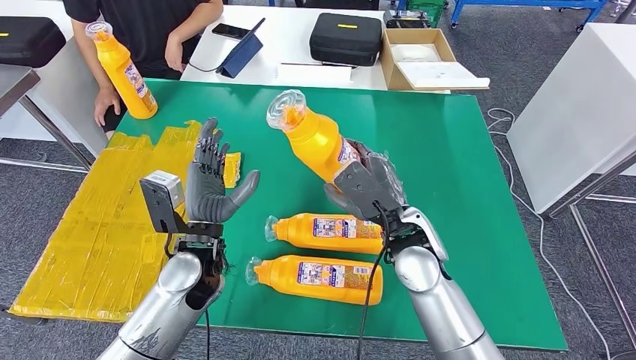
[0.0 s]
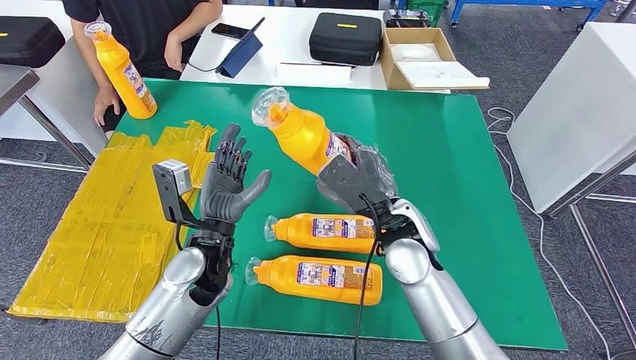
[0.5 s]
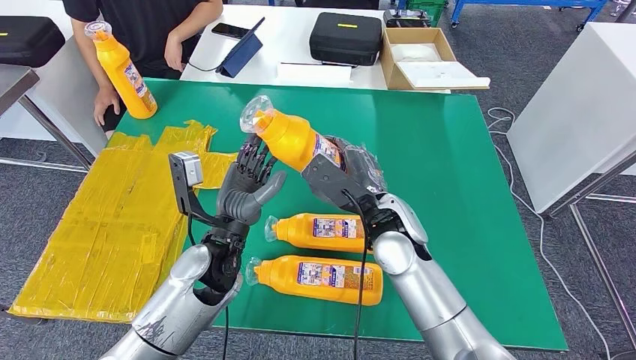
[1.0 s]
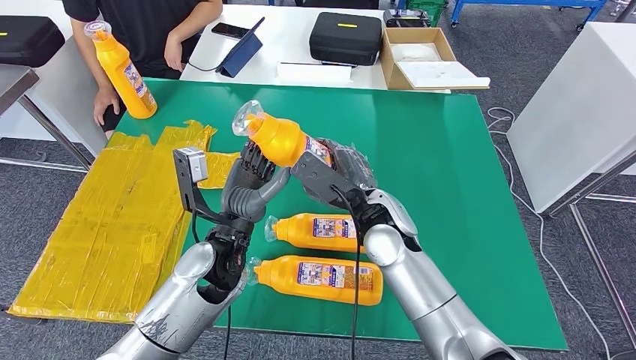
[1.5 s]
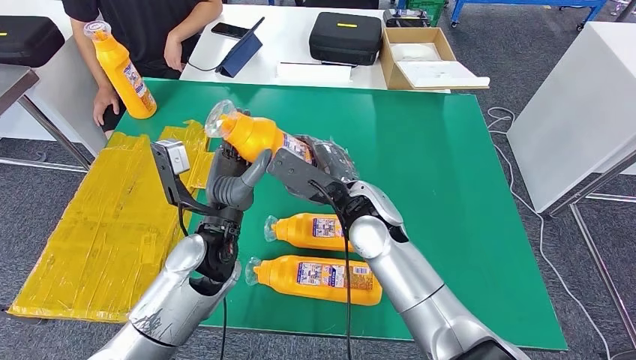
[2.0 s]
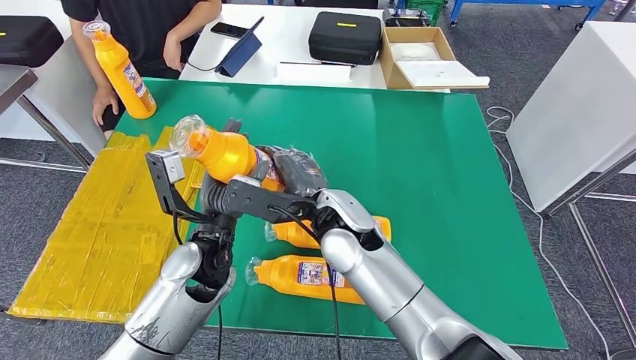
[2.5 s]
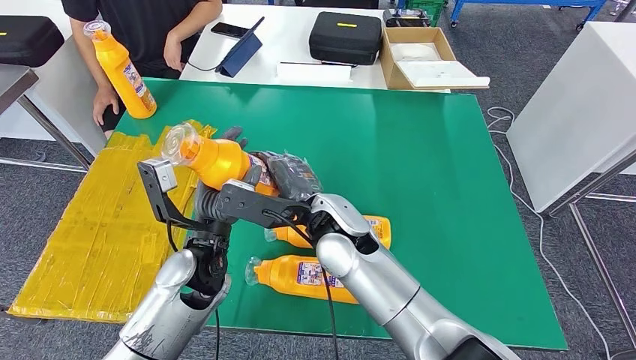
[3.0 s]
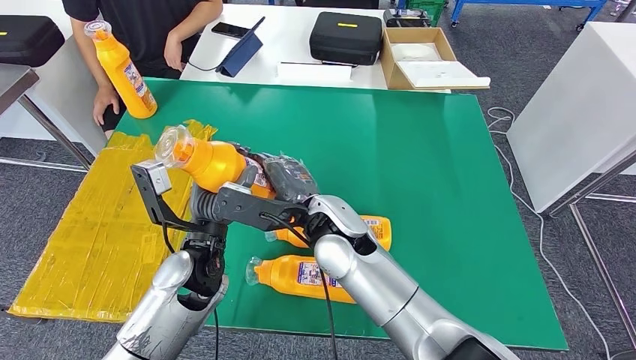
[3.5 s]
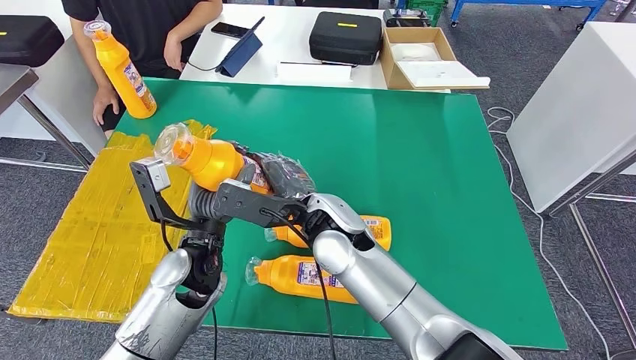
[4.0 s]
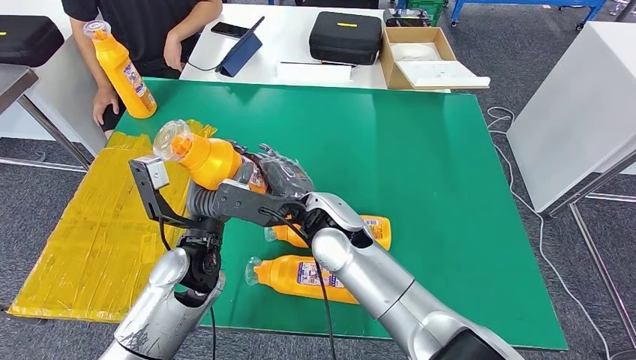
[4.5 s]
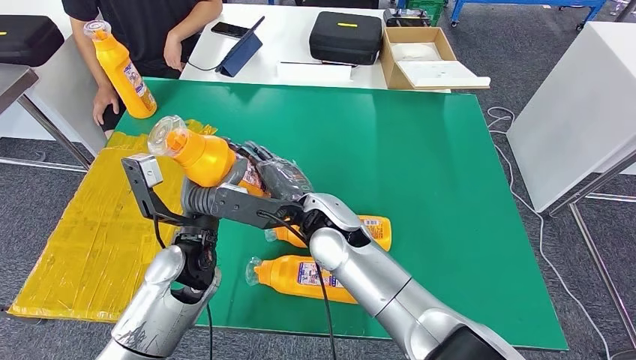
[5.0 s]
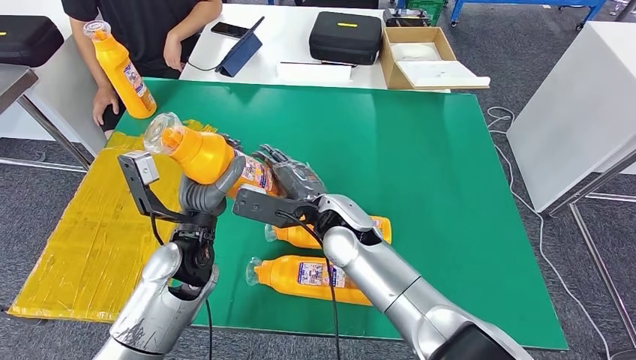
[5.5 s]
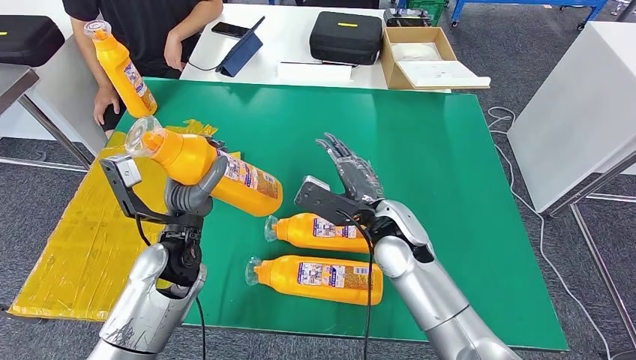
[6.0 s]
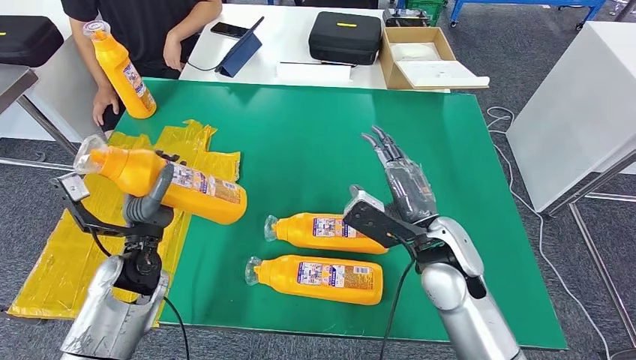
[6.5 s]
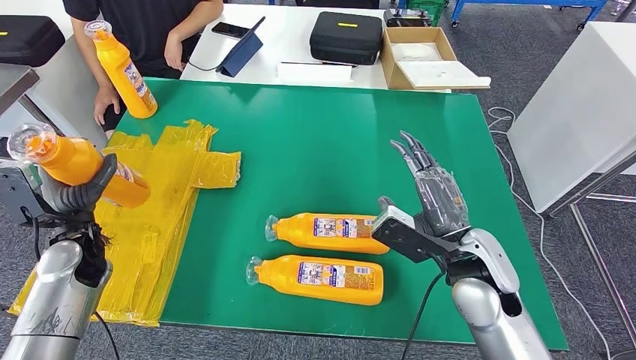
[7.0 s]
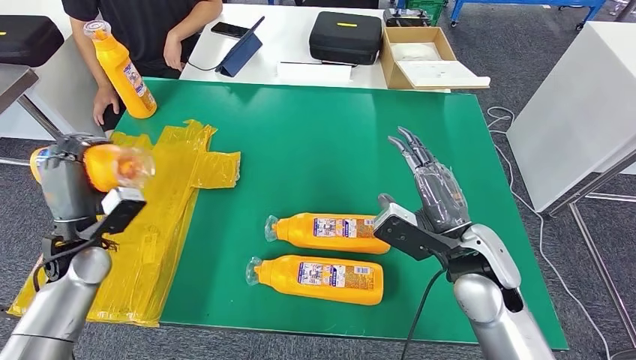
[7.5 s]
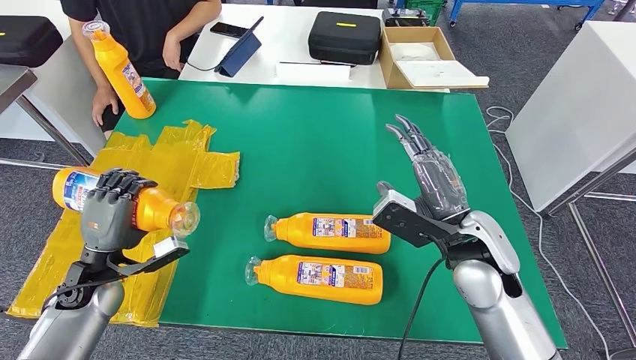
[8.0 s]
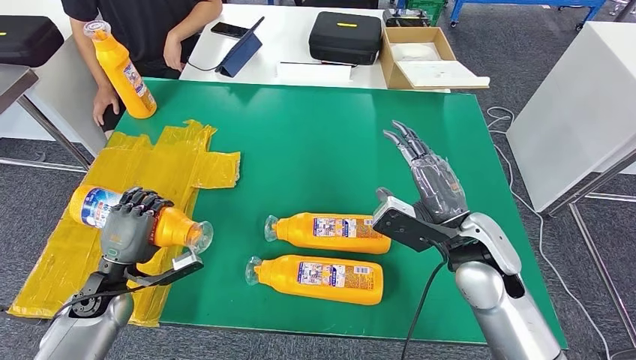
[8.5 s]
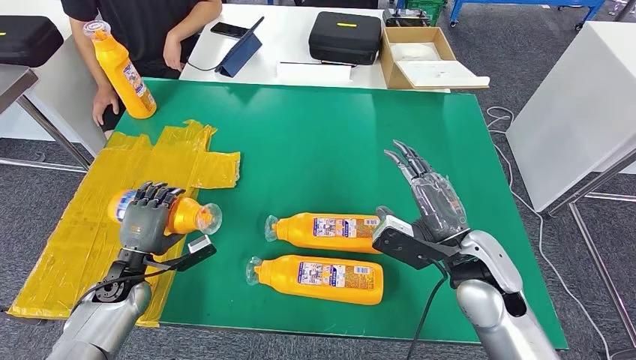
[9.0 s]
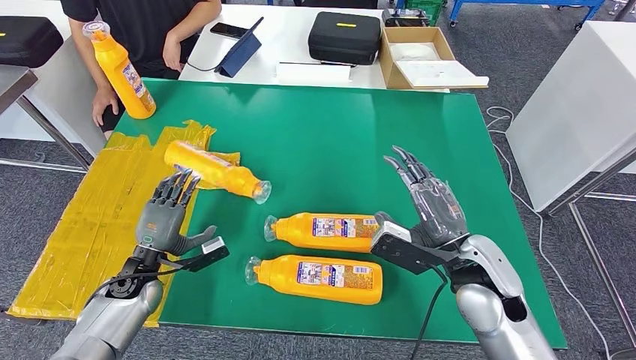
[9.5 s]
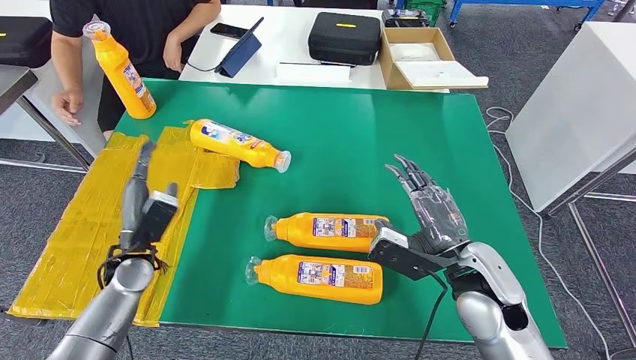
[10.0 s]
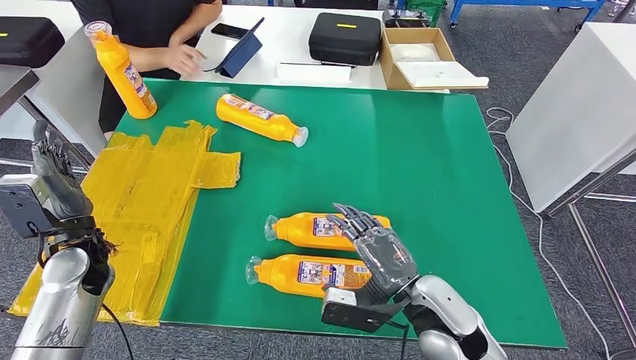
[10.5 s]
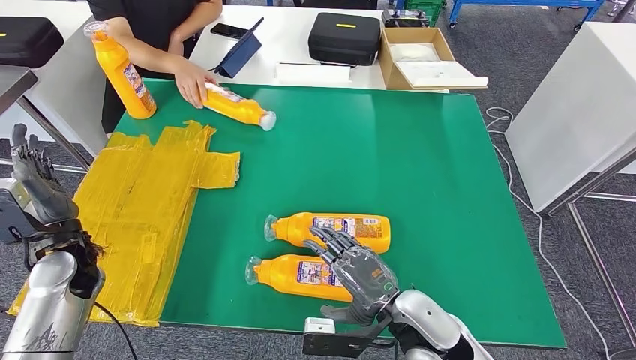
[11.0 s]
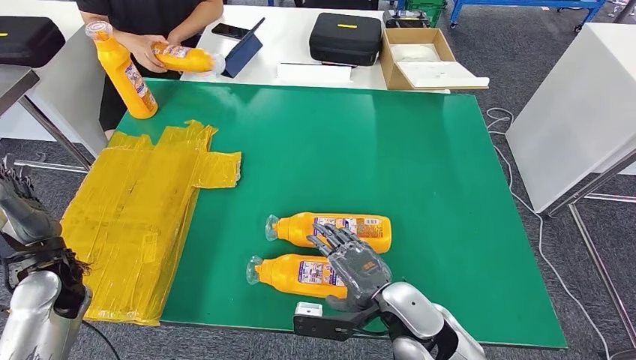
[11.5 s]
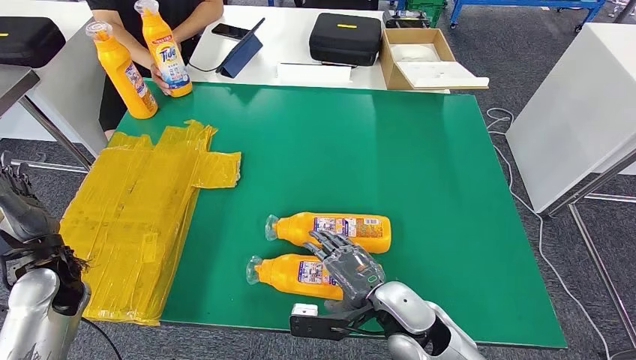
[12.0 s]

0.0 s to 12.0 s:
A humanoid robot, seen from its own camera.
Step, 0.0 to 8.0 s: Flip the fast-moving consumer goods bottle to the front side.
0.0 to 2.0 s: The right hand goes about 5 cm to the left.
2.0 to 4.0 s: The right hand is displaced to the left by about 5 cm.
4.0 to 6.0 s: The right hand shifts roughly 10 cm to the right.
8.0 to 10.0 s: The left hand shifts about 5 cm to the right. Meanwhile the right hand moves some 5 cm.

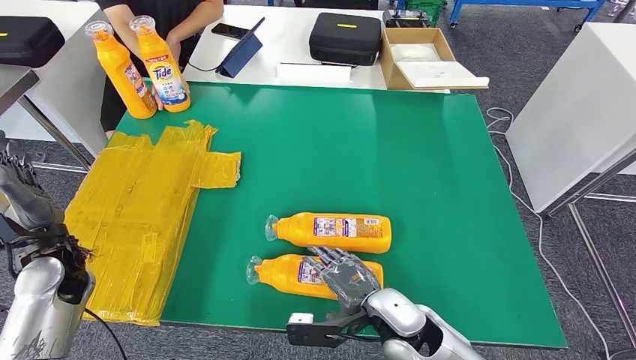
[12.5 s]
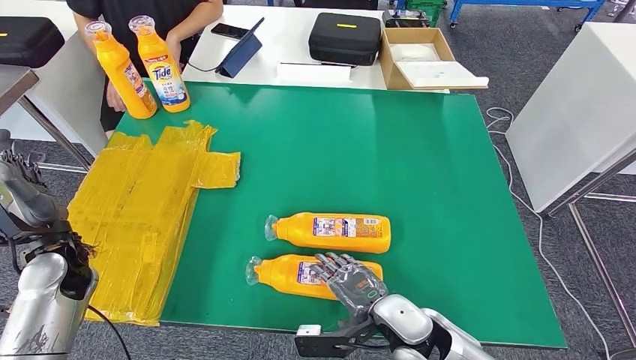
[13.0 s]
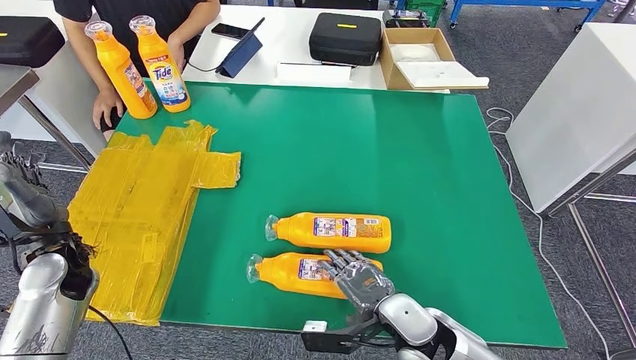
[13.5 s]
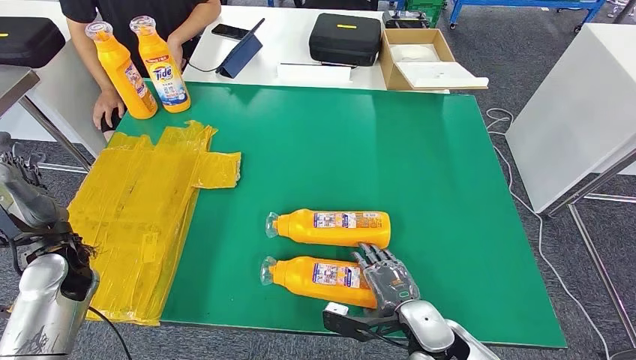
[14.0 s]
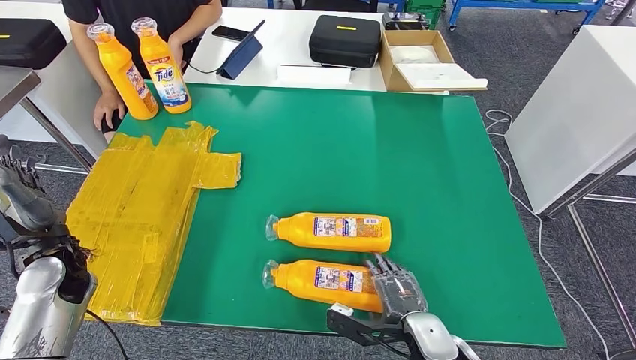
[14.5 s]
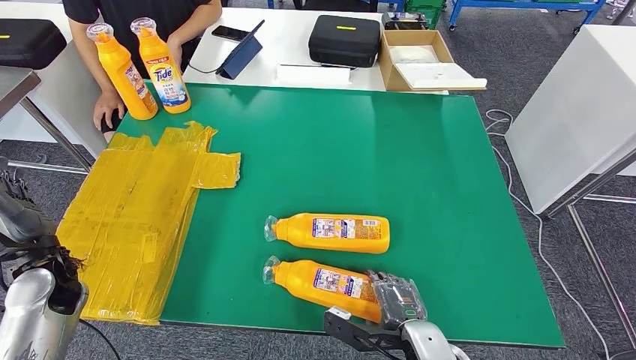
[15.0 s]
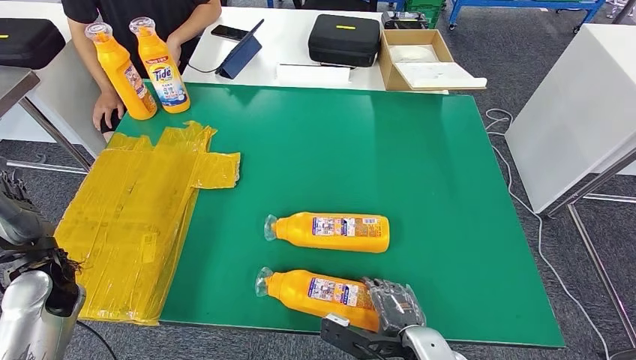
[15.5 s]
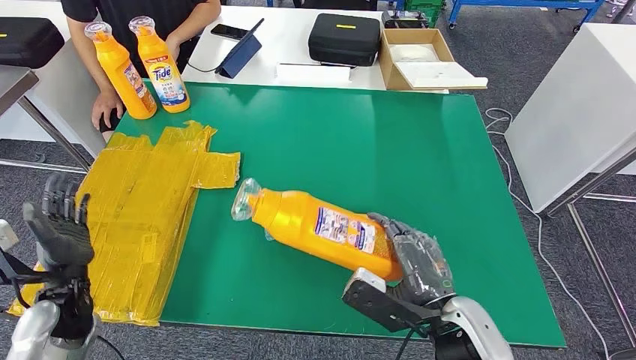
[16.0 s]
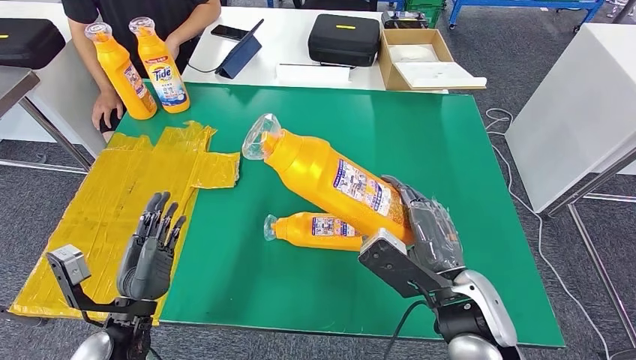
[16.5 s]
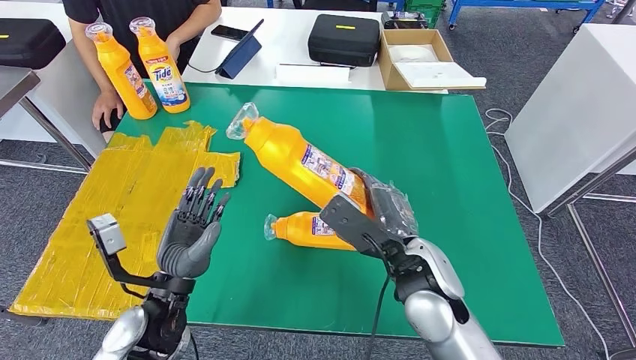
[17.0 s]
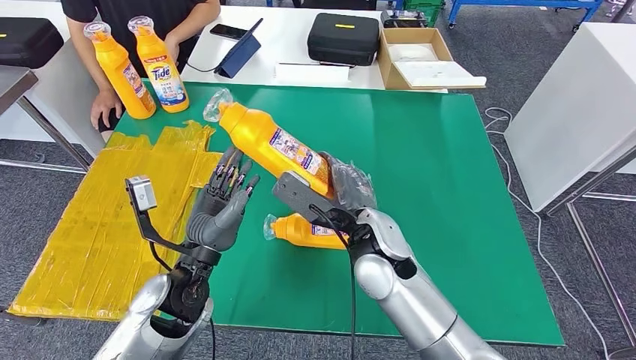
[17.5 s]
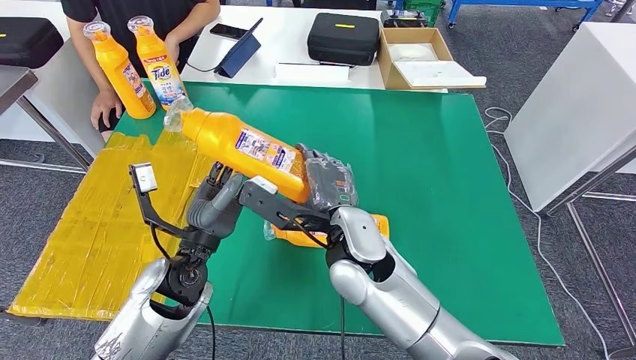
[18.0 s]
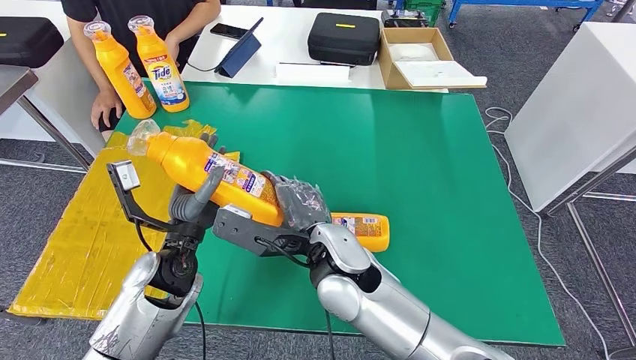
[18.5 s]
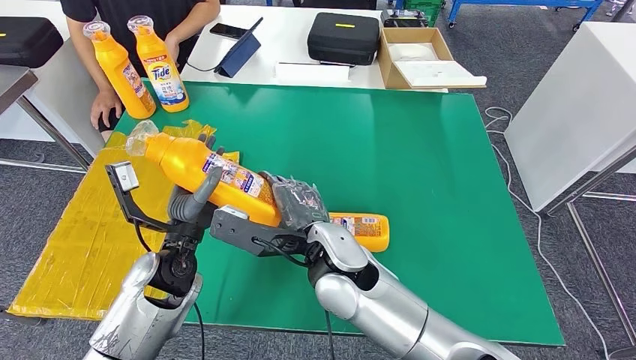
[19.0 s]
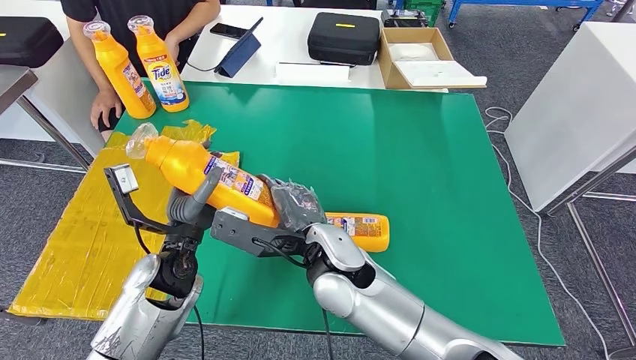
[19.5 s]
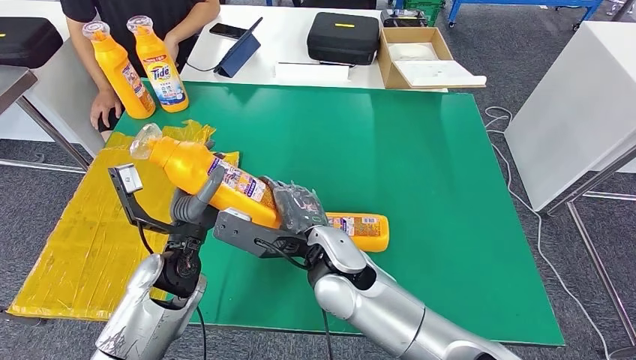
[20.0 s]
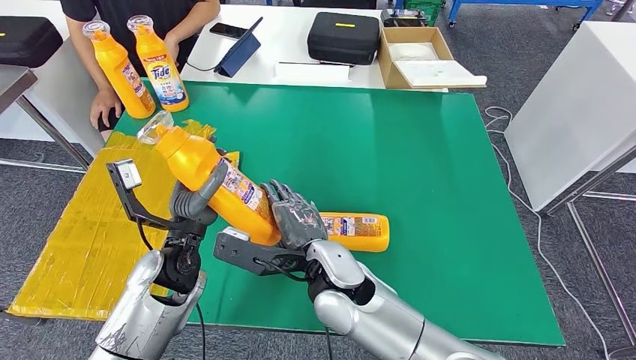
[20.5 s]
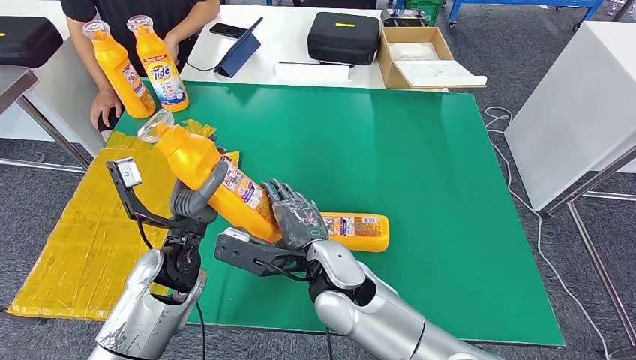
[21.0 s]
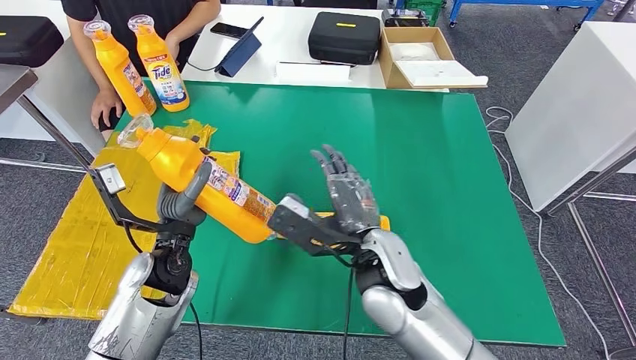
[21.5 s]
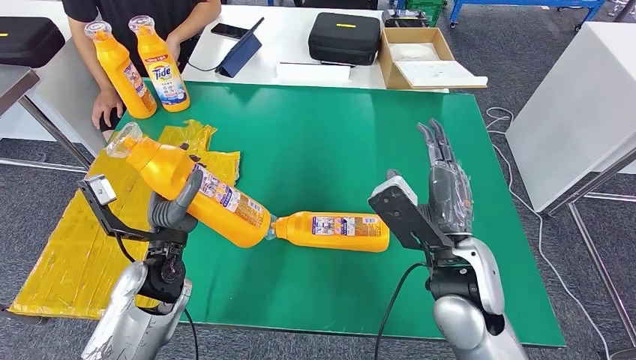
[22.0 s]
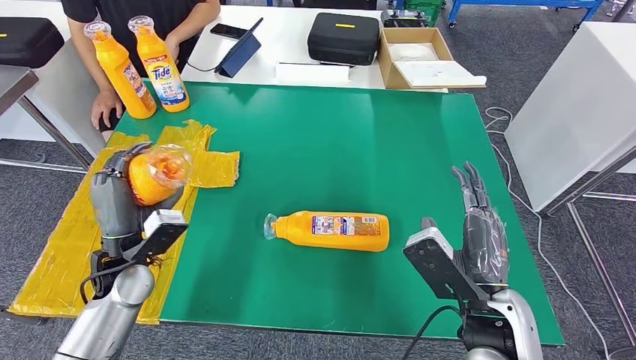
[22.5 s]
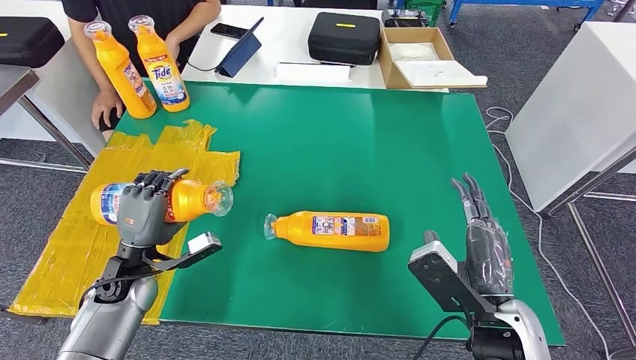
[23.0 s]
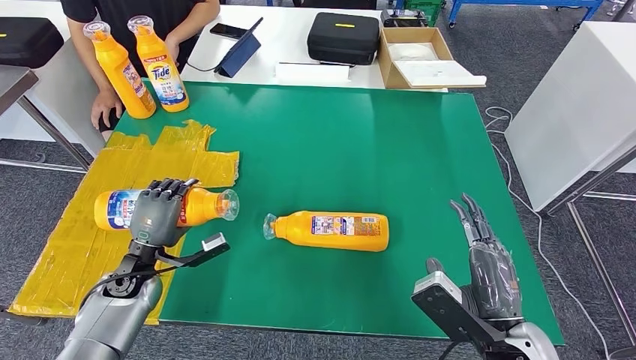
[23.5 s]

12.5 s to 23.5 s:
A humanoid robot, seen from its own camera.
Step, 12.5 to 21.0 s: Pick up the fast-moving consumer goods bottle from the table.
12.5 to 14.5 s: The right hand travels to the right by about 5 cm.
14.5 to 16.0 s: The left hand shifts approximately 5 cm backward; the right hand goes some 10 cm upward.
18.0 to 20.0 s: The hands move only a little.
20.0 to 21.5 s: The right hand is displaced to the right by some 5 cm.
